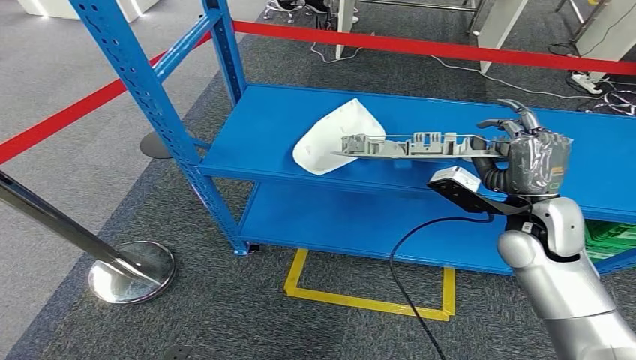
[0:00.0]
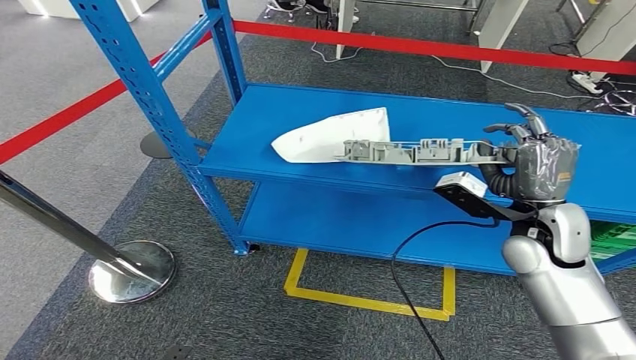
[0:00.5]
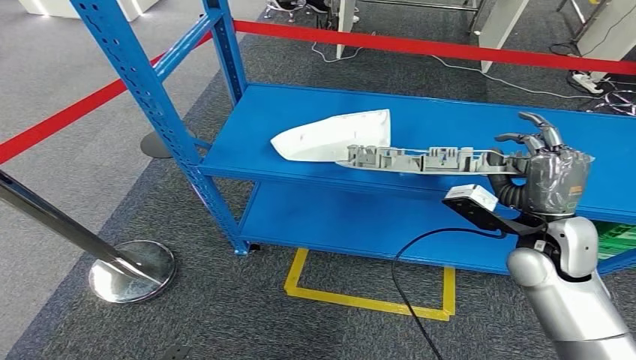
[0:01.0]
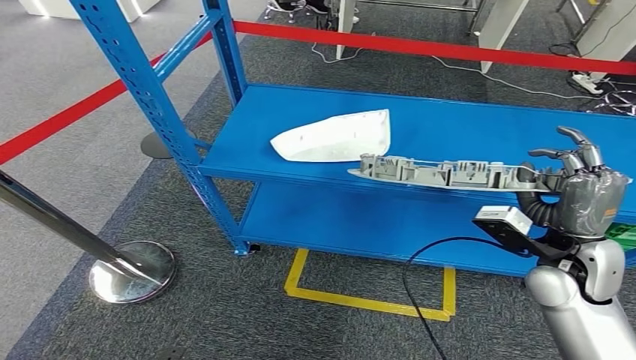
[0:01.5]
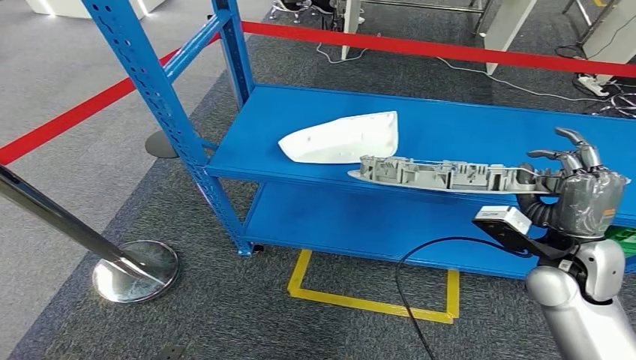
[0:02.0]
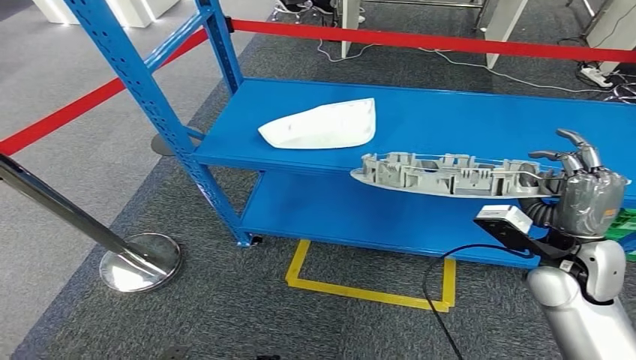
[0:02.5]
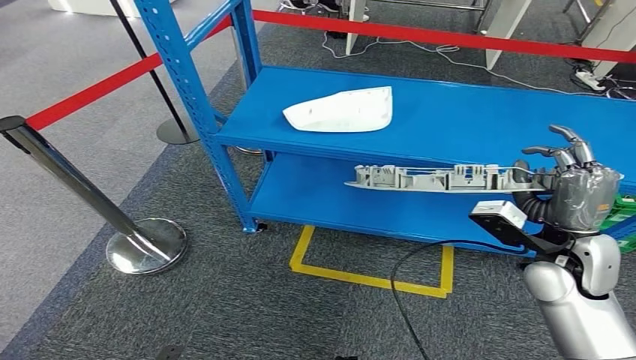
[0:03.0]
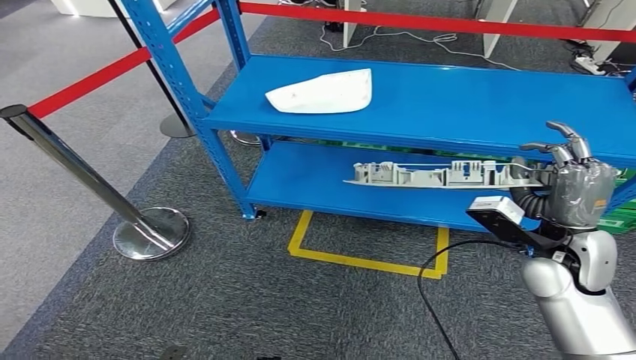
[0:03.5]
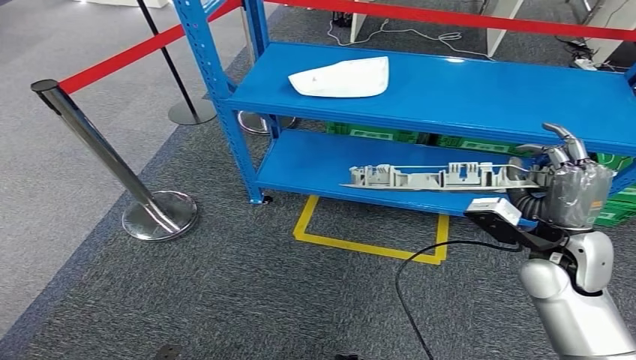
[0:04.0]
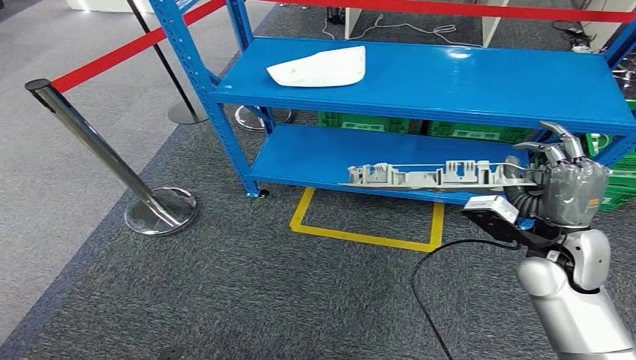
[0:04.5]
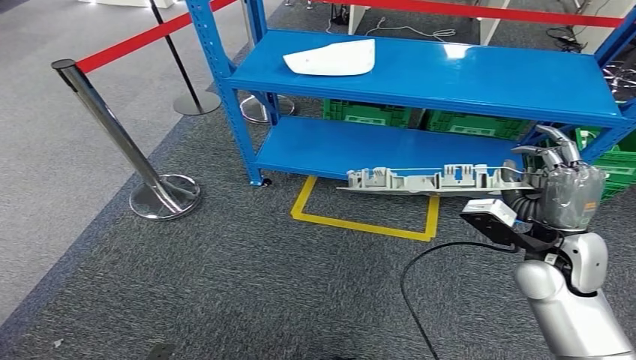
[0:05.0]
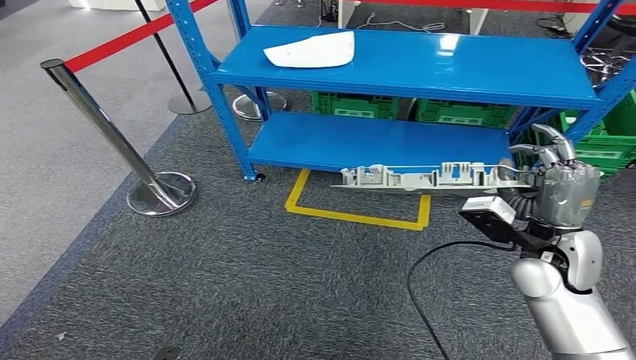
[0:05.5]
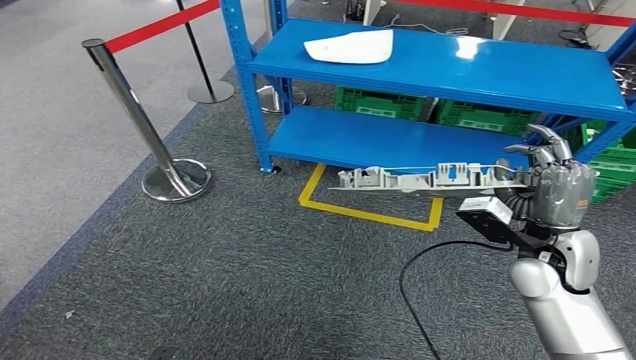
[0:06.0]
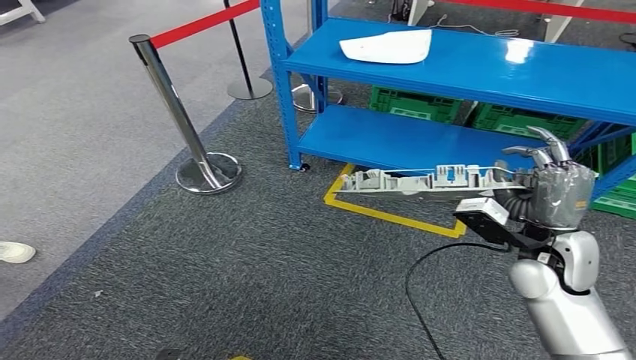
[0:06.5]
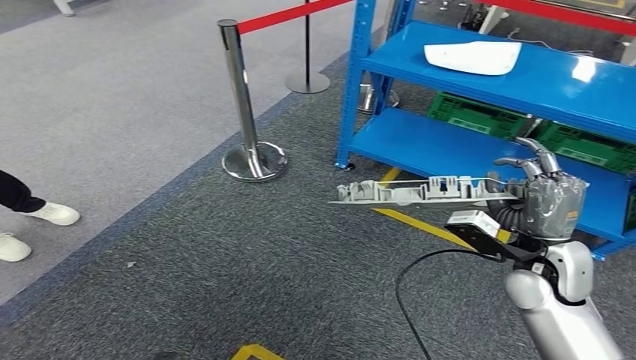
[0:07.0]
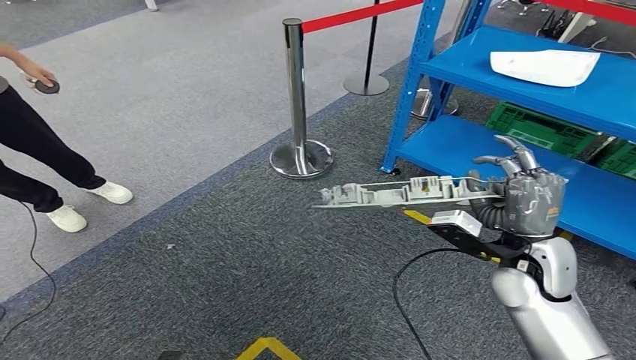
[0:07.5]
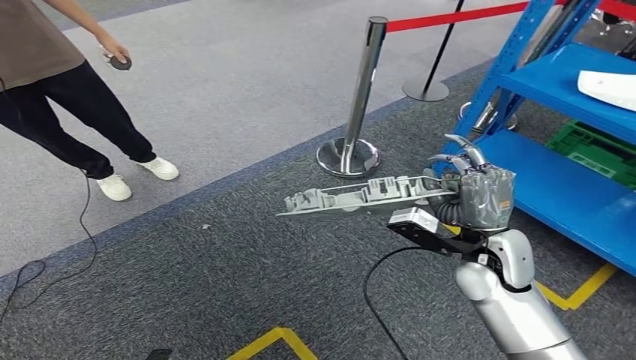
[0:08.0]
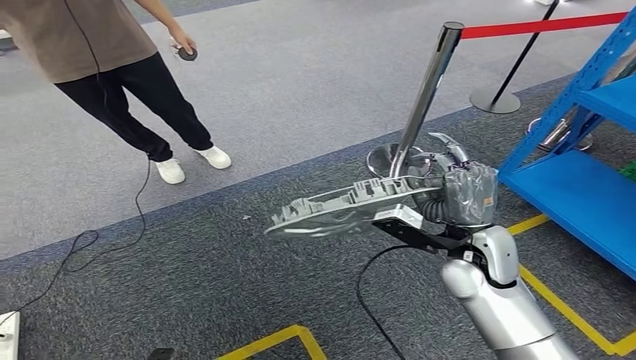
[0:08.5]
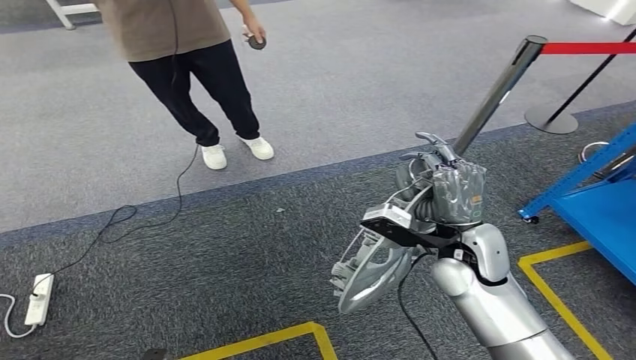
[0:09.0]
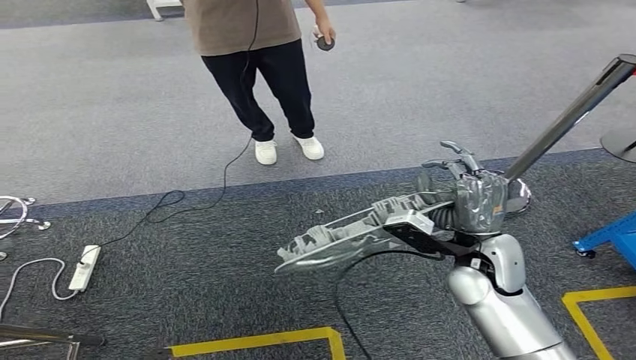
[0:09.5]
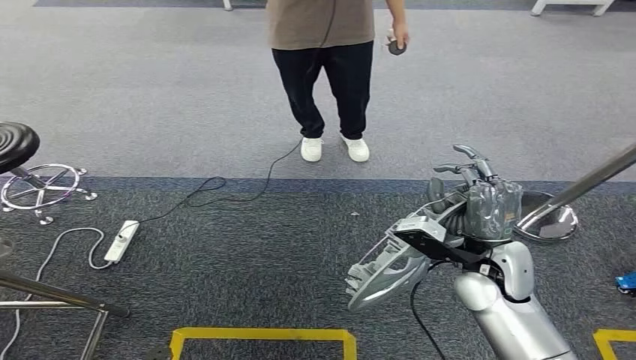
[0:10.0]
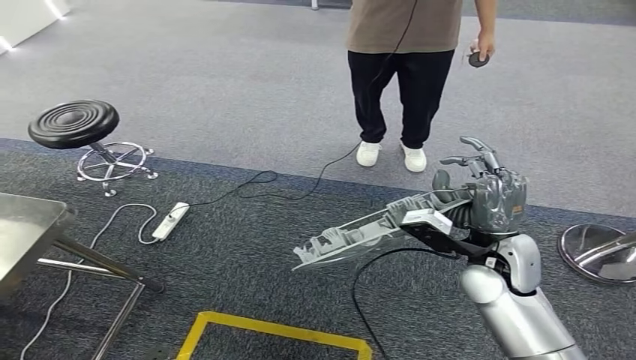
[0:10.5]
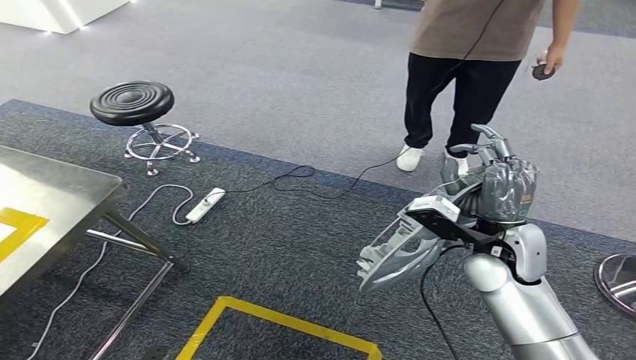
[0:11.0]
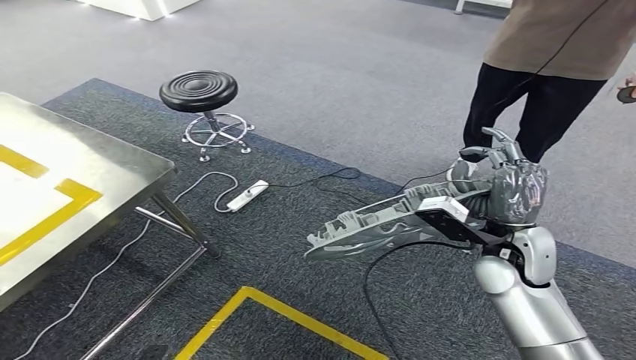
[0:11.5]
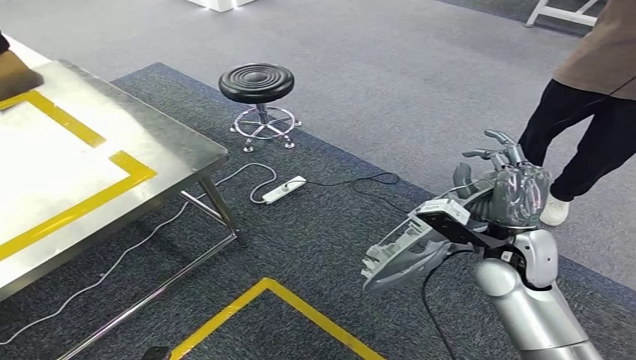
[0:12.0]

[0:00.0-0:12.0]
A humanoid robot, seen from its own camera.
Step, 0:00.0 to 0:02.5: Pick up the small component from the shelf.

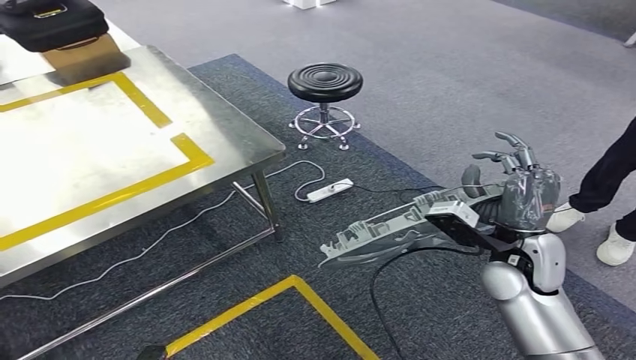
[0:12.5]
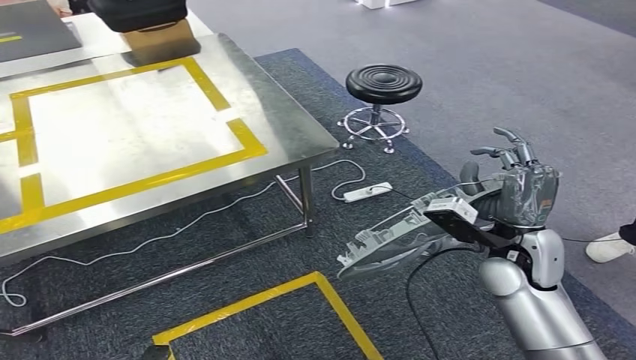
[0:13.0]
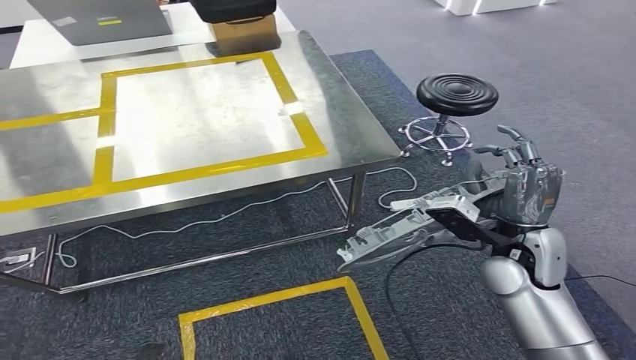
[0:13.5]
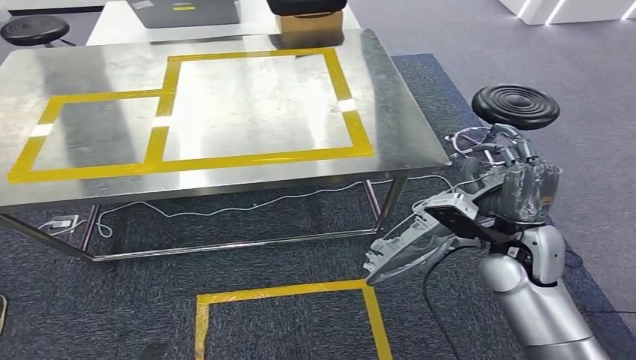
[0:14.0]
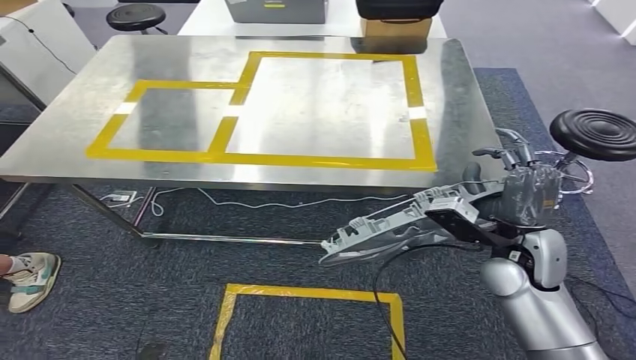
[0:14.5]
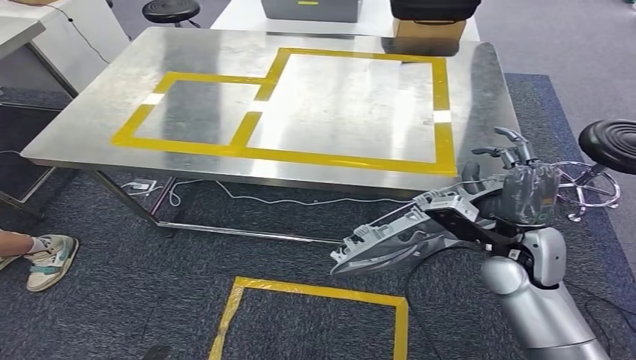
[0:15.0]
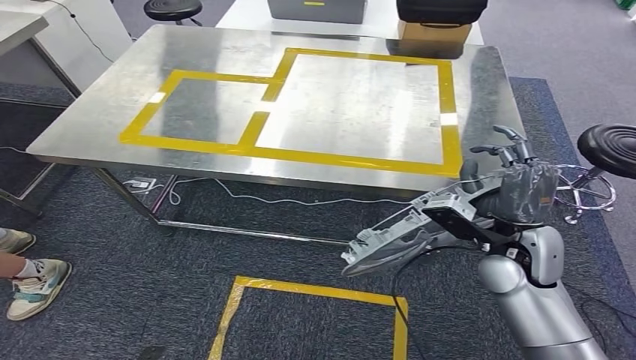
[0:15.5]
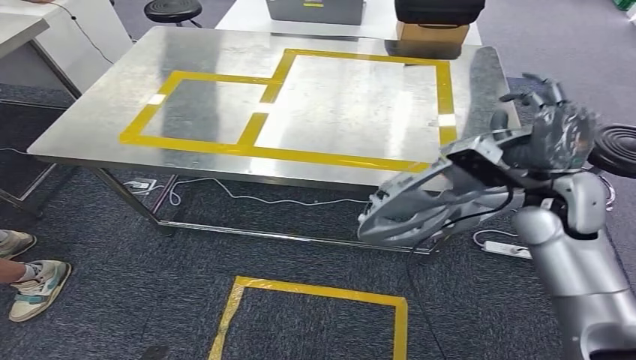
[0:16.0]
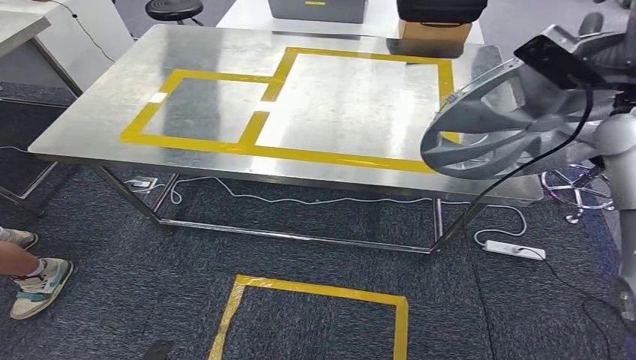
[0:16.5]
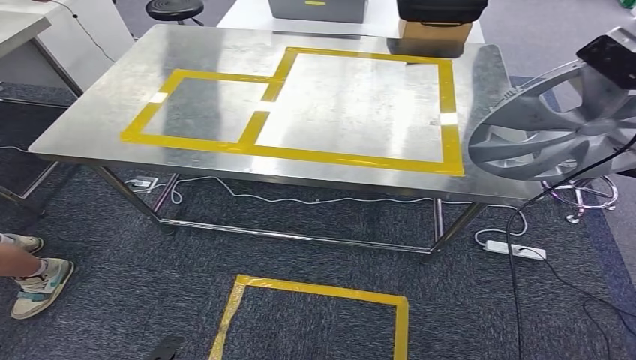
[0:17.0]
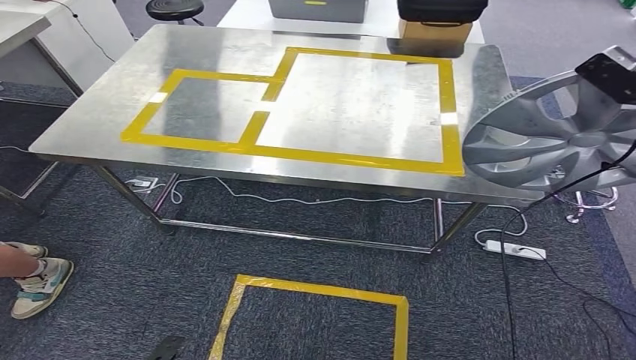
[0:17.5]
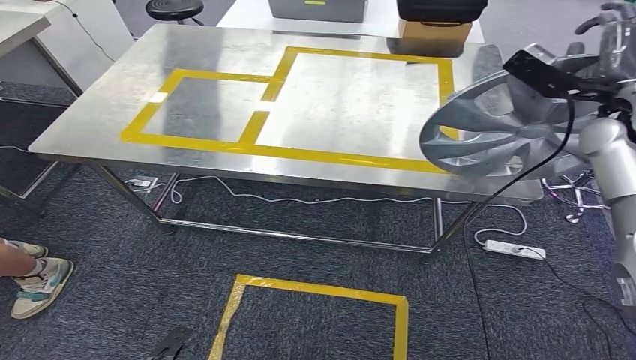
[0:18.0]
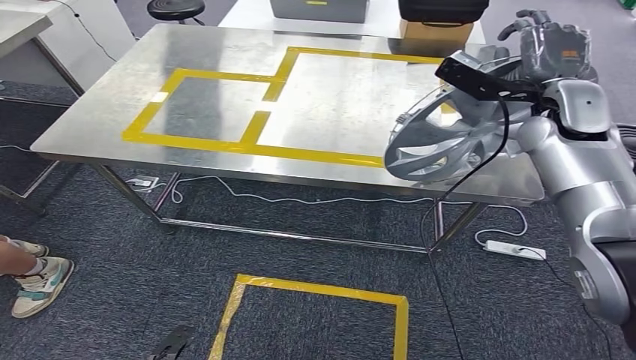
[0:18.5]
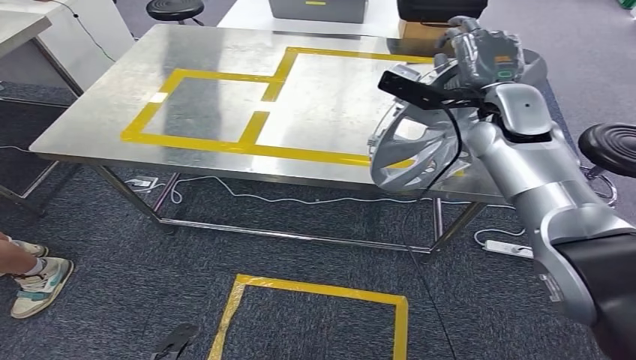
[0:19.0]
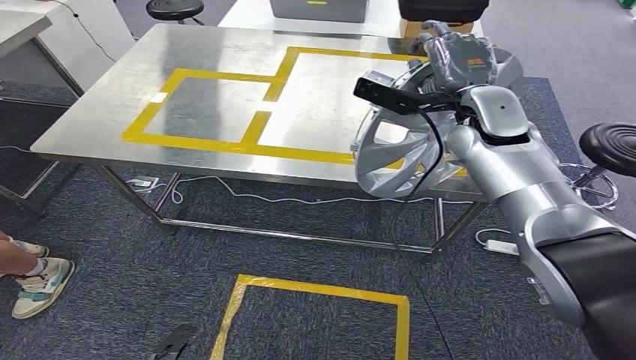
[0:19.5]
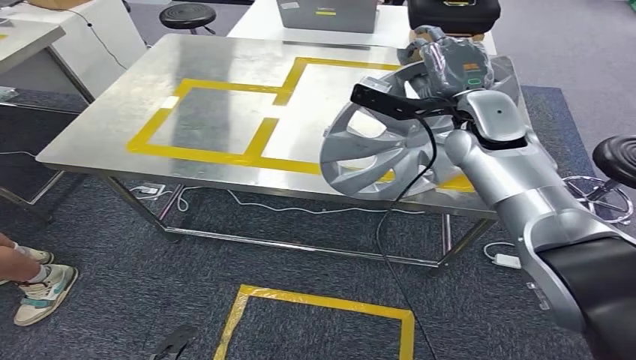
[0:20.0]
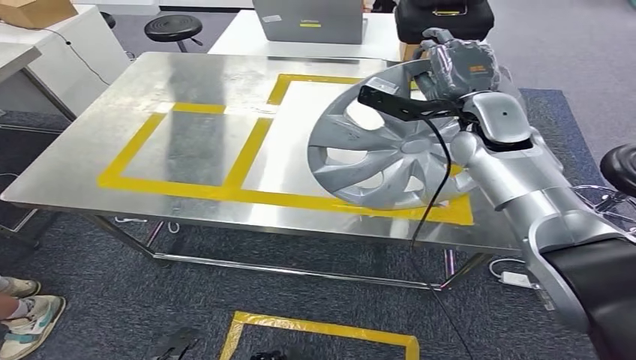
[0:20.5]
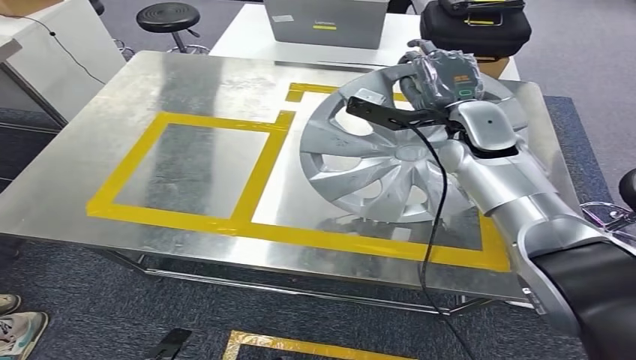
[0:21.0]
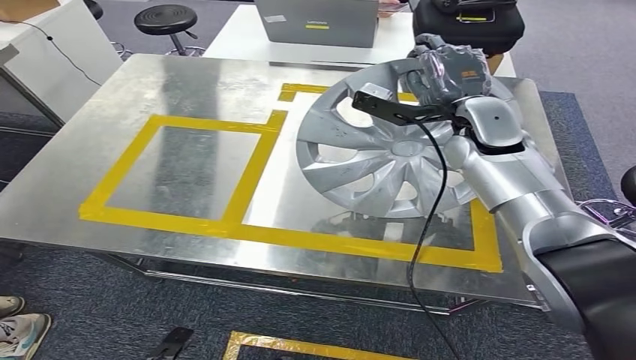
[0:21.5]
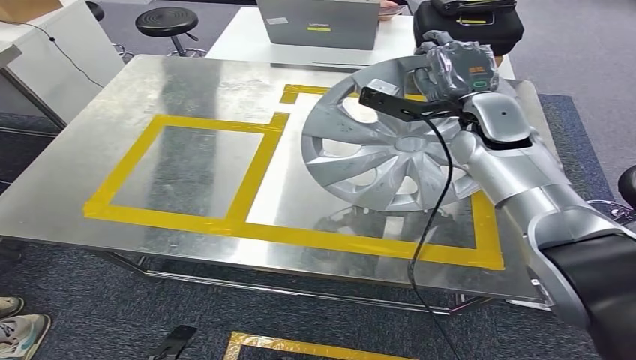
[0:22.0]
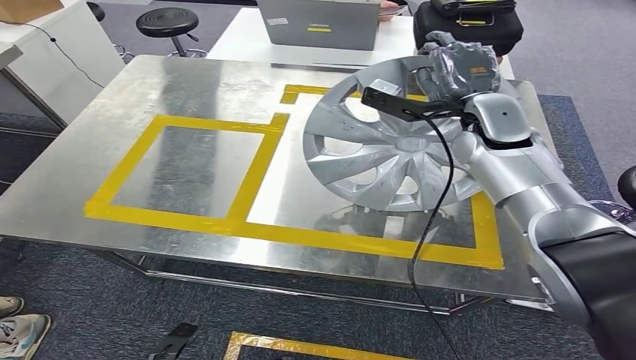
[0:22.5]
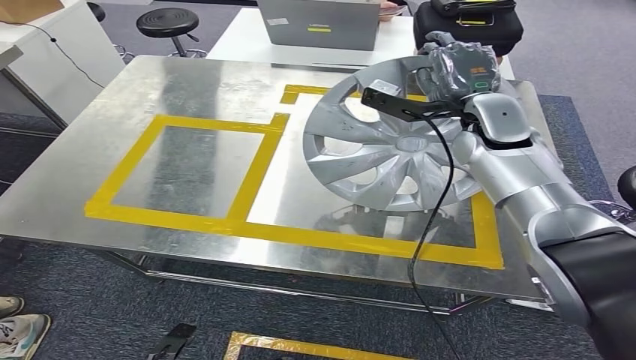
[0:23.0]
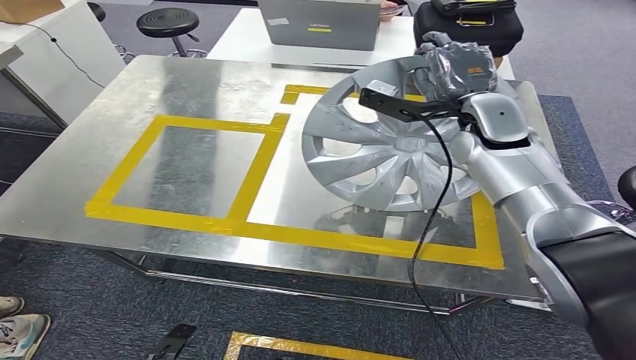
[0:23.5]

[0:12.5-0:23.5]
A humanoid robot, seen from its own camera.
Step, 0:12.5 to 0:17.5: Bring the small component to the front of the workbench.
0:21.5 to 0:23.5: Neither hand changes place.
